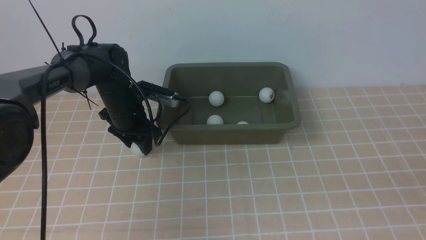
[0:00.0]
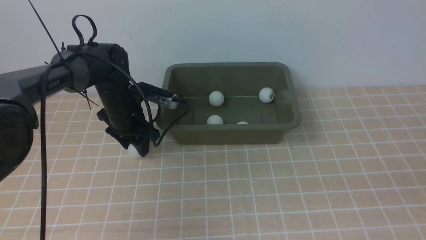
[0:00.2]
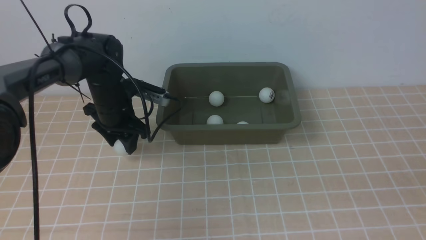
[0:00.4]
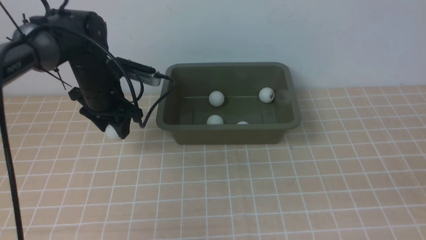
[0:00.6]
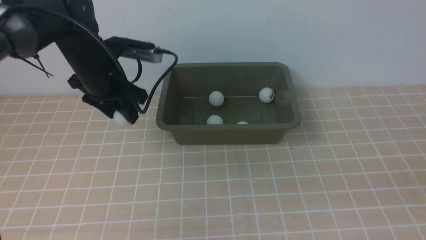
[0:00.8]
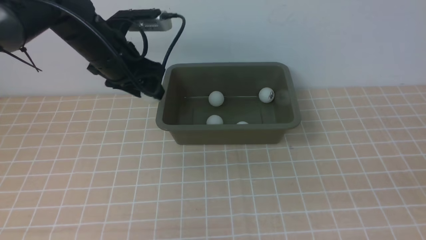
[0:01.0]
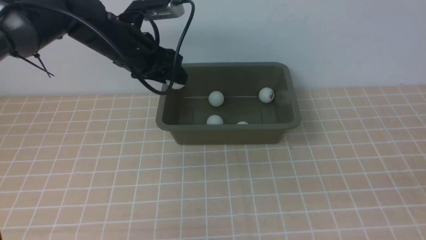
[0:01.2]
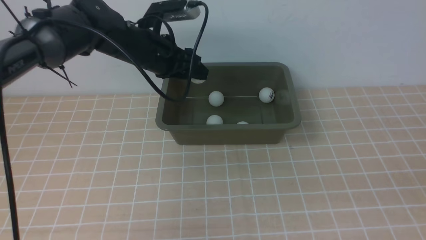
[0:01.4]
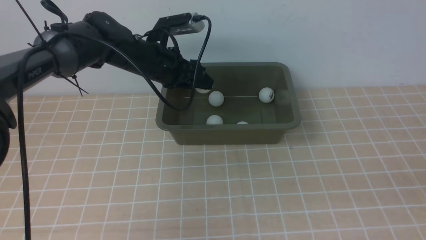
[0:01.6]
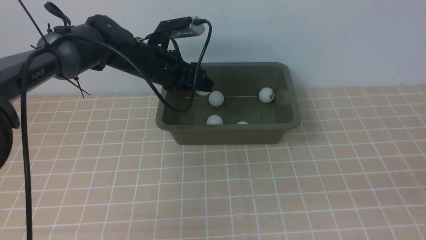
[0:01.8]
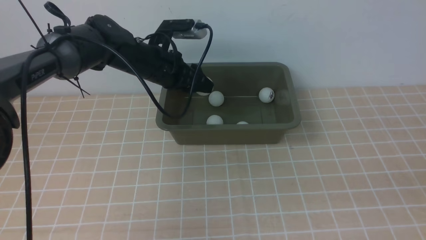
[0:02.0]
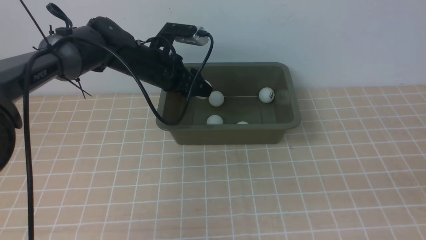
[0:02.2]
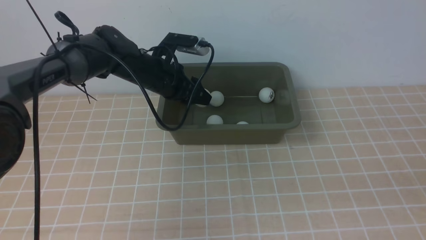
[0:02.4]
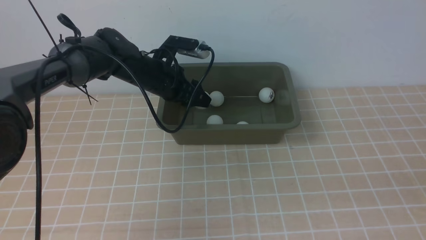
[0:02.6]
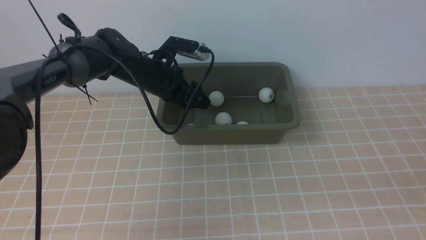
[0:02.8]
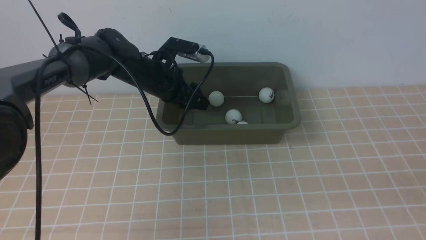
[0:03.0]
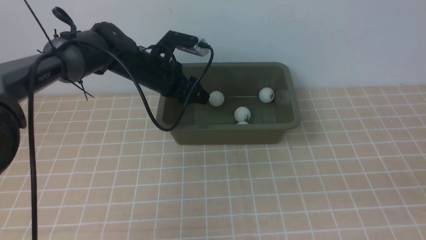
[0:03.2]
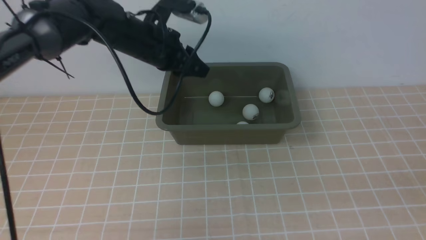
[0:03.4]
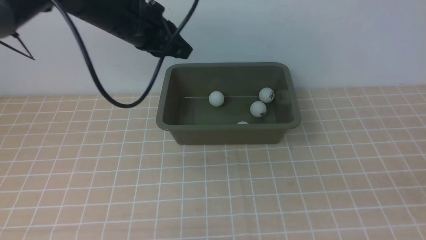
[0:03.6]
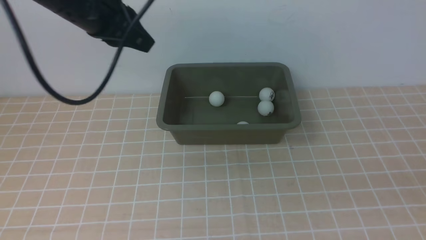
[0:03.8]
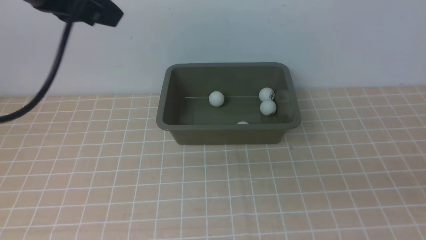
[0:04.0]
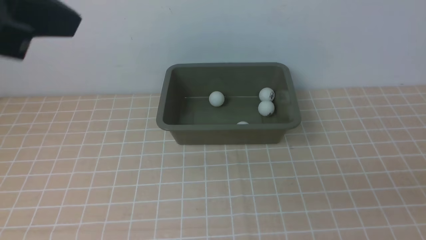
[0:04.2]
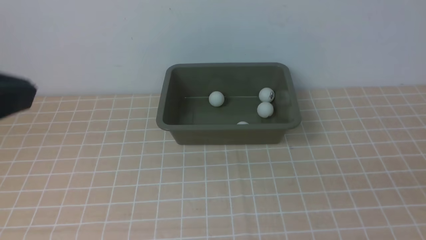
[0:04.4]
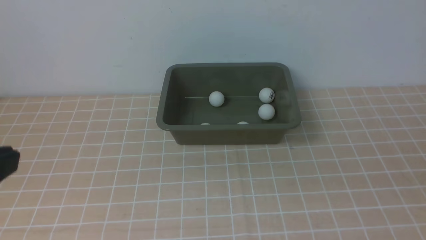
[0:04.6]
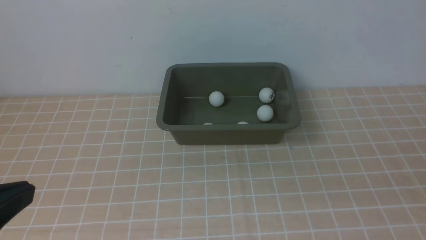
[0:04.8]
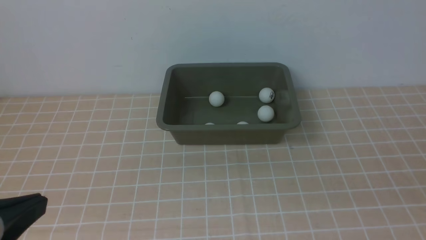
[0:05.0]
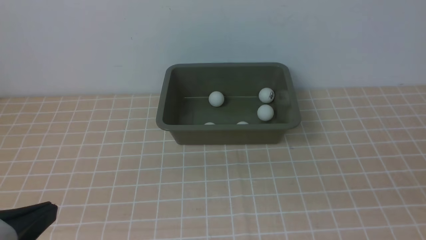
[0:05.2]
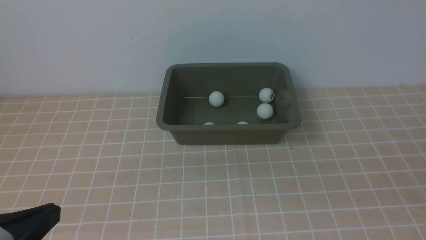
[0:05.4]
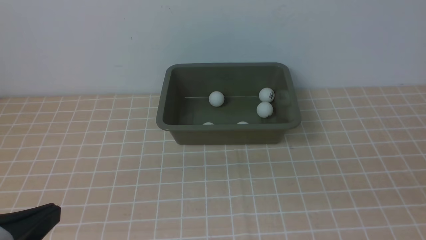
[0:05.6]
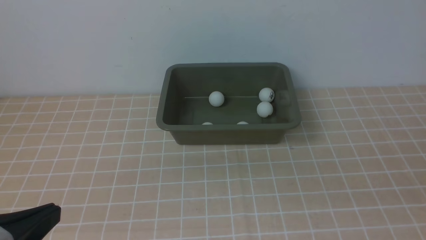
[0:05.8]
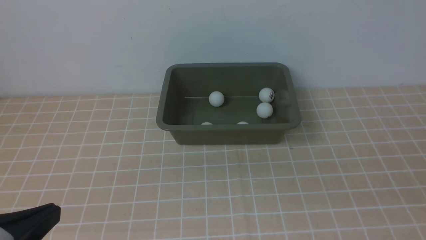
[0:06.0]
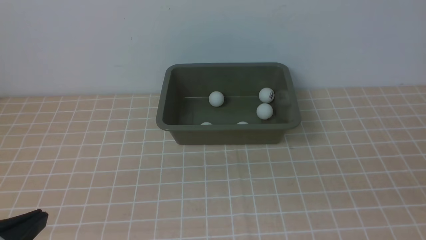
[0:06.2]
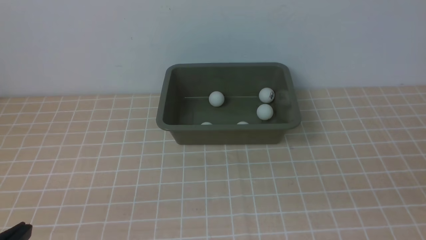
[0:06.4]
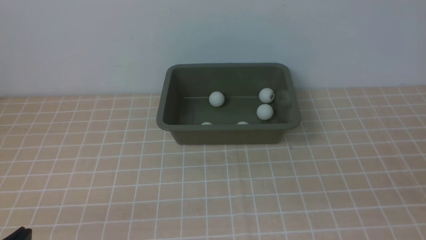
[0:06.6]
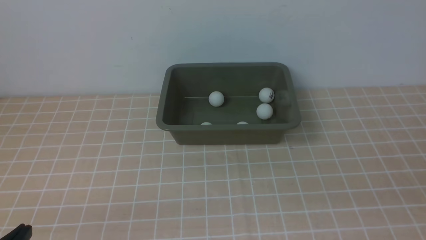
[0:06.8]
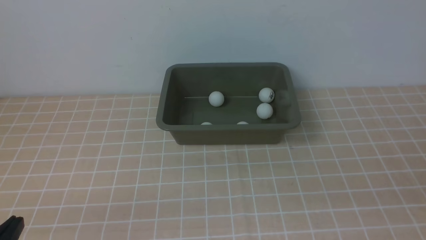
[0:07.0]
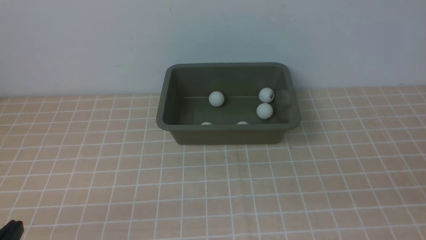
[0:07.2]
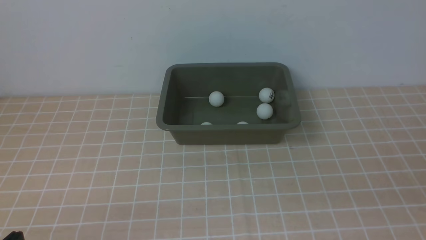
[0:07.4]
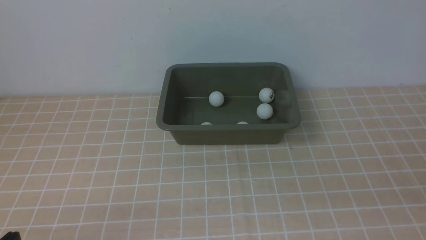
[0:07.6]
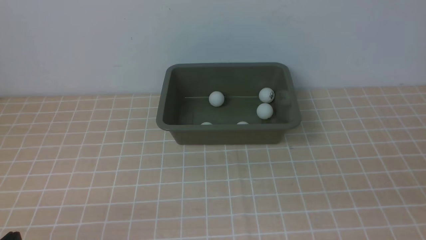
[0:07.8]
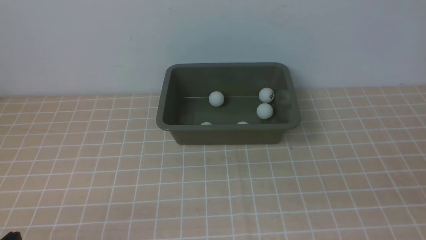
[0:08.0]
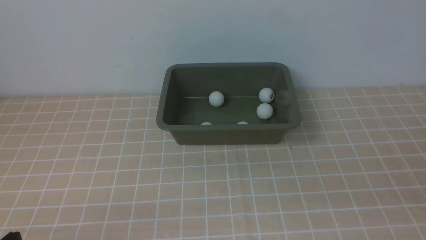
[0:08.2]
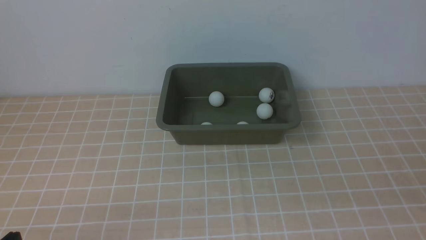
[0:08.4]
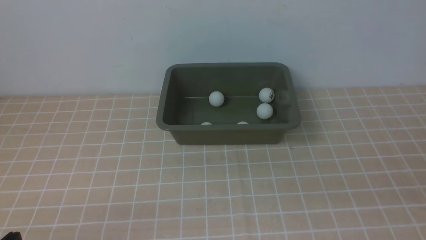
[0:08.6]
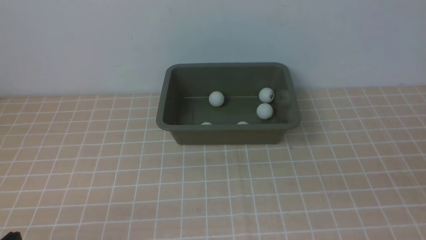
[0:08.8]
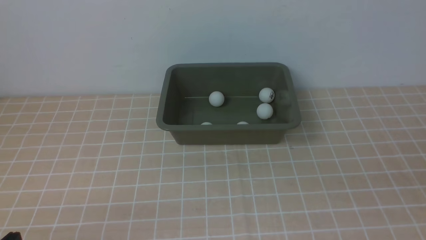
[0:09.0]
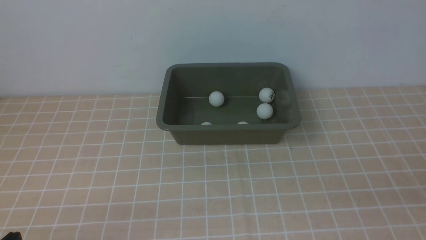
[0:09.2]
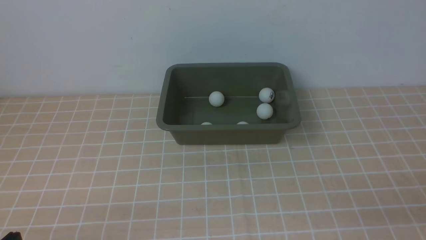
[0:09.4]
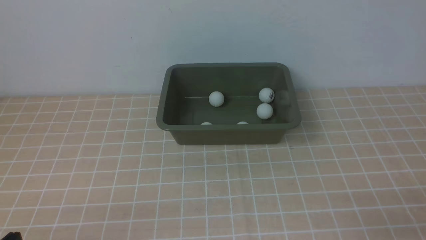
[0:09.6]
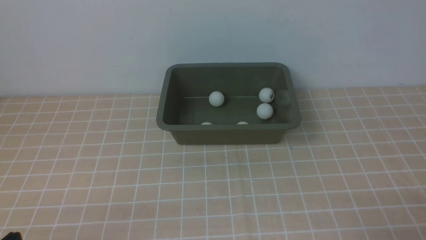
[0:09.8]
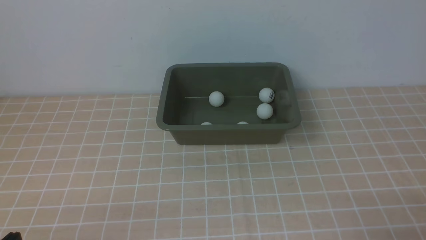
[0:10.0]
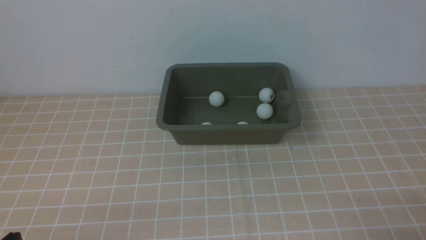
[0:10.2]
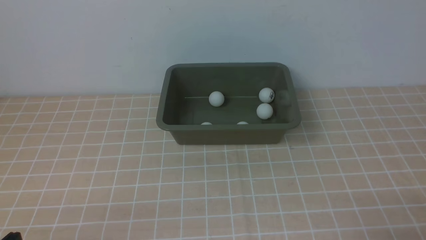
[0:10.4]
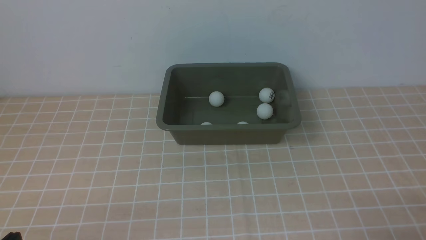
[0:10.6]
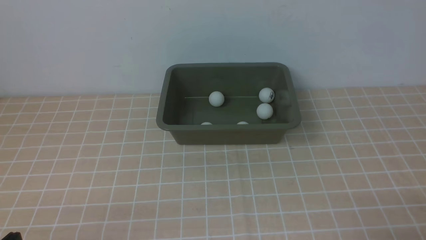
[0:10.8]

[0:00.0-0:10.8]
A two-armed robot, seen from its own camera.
Step, 0:00.6 to 0:03.0: use the left arm to put the table tennis ball into the box.
0:00.0 to 0:01.6: The left gripper travels upward and to the right by about 10 cm.
0:01.6 to 0:03.0: The grippers stay close to where they were, moving slightly.
0:03.0 to 0:04.6: The left gripper shifts approximately 40 cm backward and upward, and closes up.
0:04.6 to 0:06.2: The left gripper goes approximately 10 cm downward.
0:06.2 to 0:07.8: The left gripper moves downward, approximately 10 cm.

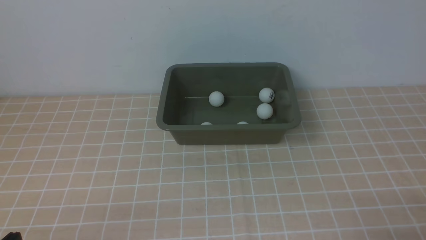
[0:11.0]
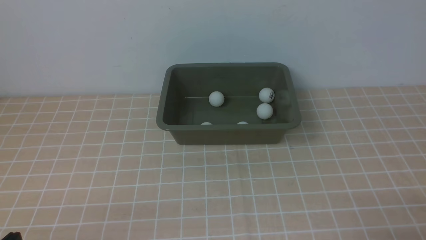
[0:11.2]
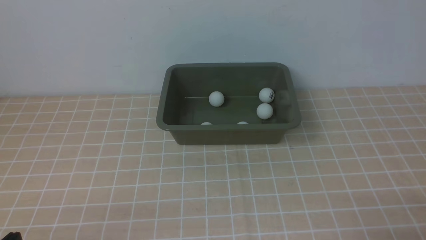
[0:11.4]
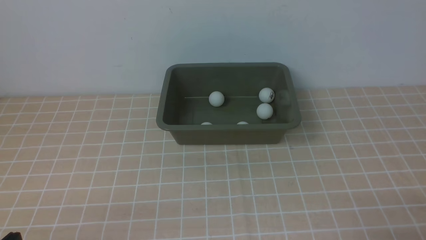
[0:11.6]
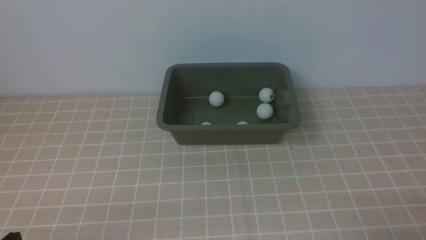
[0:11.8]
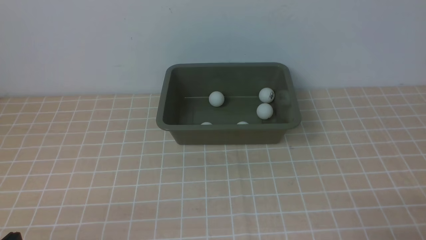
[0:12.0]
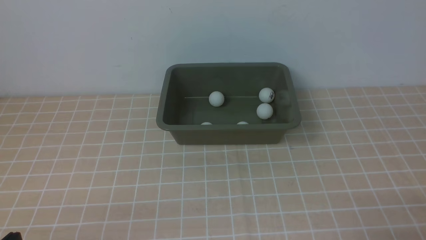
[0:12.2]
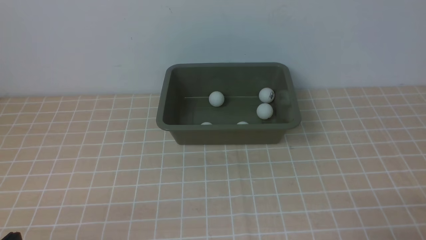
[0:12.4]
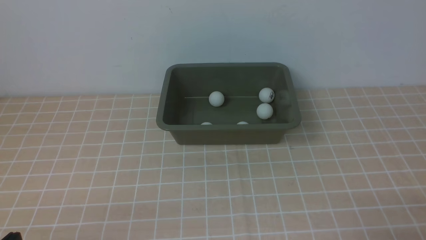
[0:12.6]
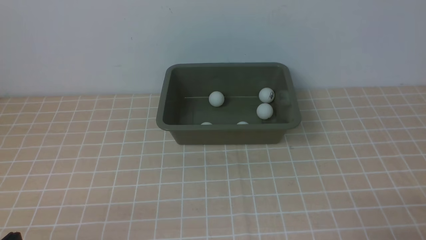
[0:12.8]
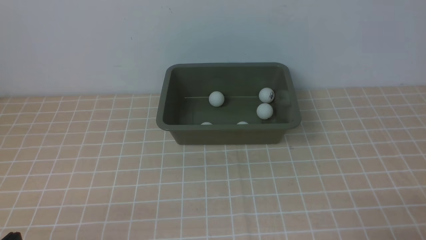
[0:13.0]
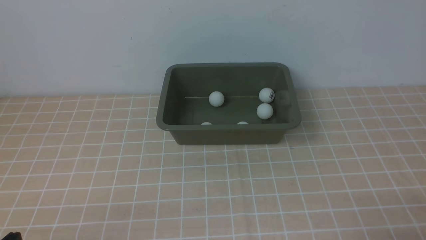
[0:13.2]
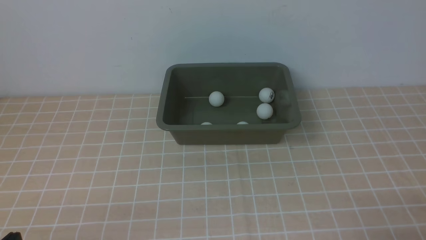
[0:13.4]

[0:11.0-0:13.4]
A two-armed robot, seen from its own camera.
0:11.0 to 0:13.4: Neither gripper changes place.
